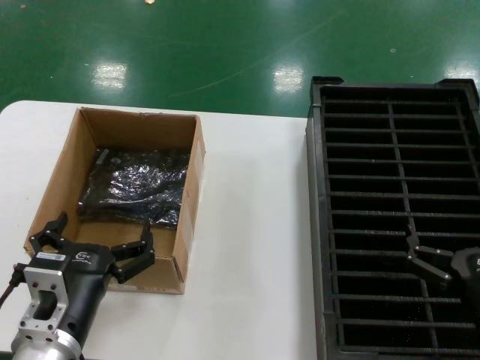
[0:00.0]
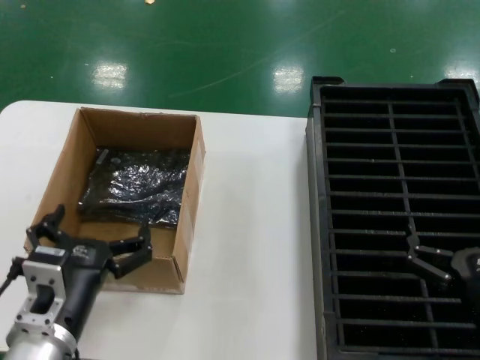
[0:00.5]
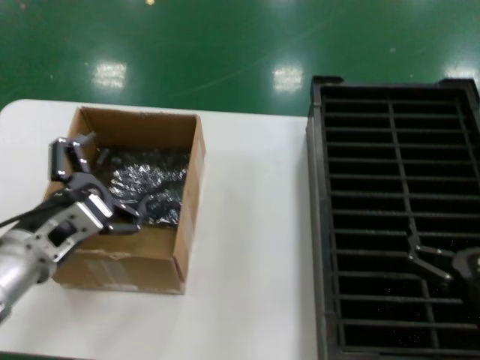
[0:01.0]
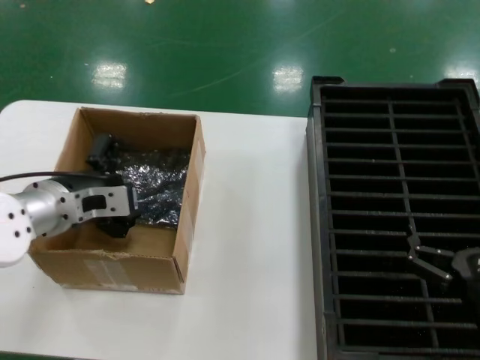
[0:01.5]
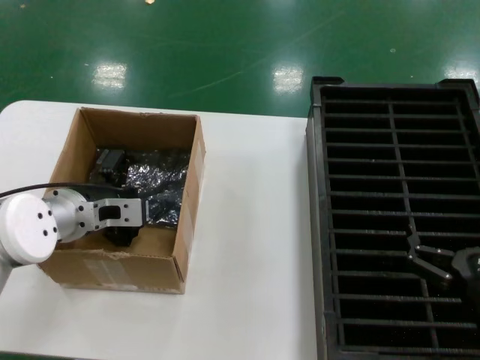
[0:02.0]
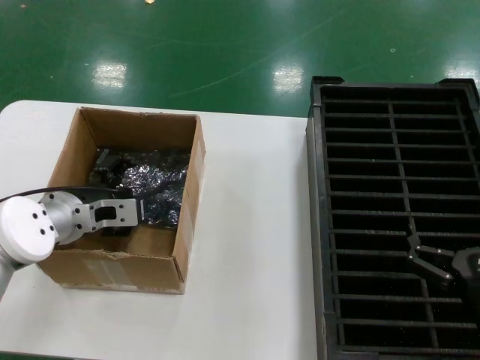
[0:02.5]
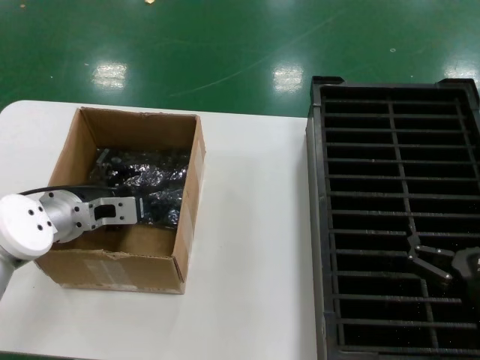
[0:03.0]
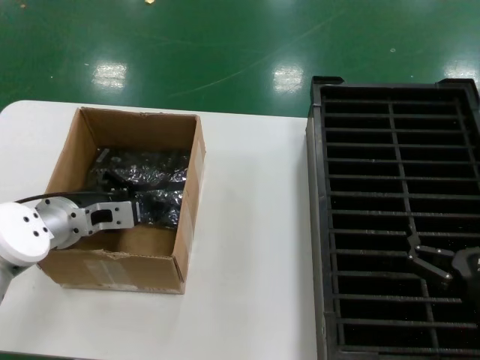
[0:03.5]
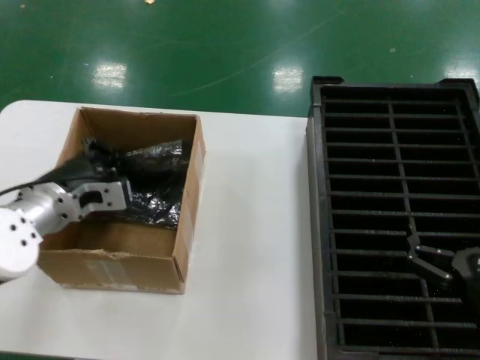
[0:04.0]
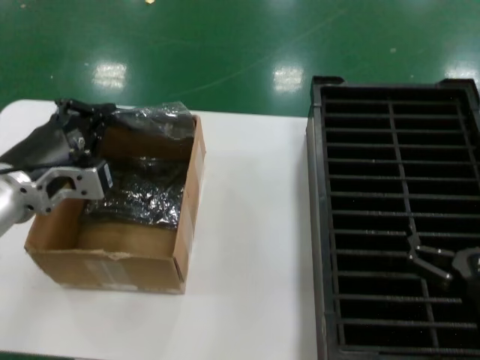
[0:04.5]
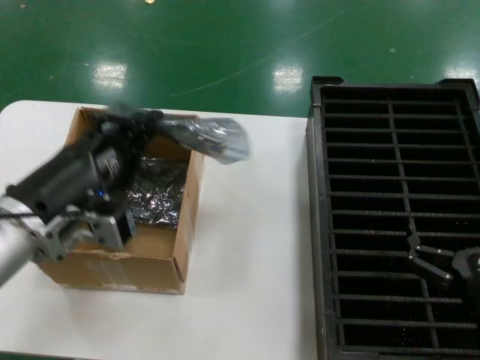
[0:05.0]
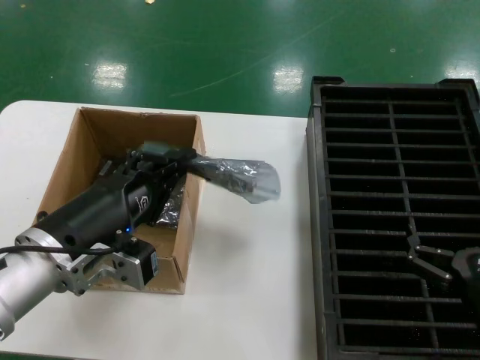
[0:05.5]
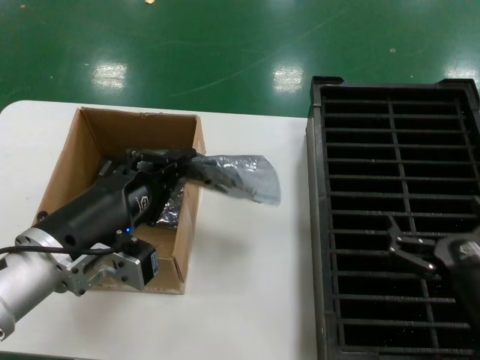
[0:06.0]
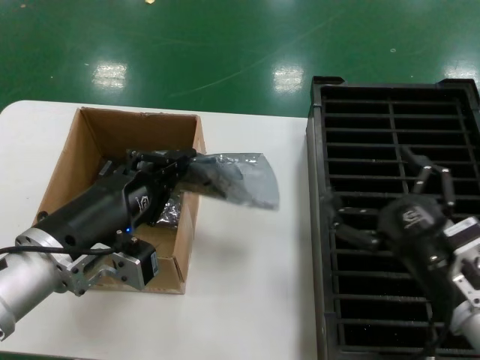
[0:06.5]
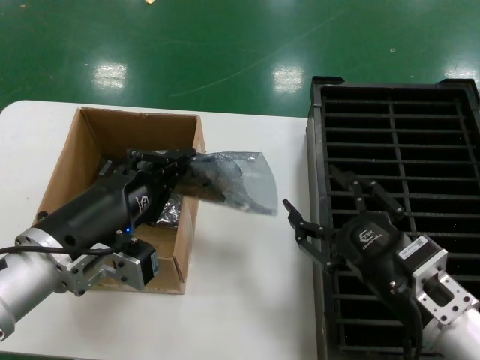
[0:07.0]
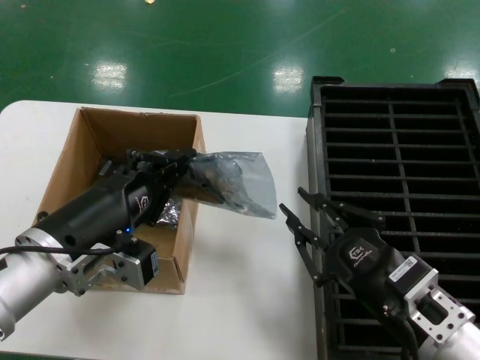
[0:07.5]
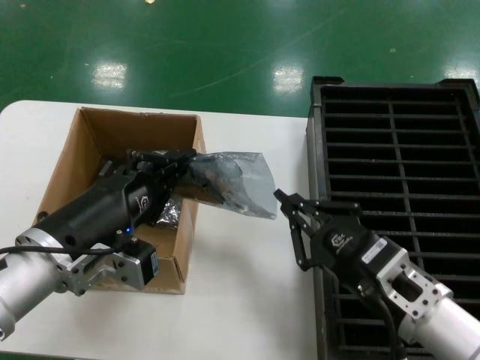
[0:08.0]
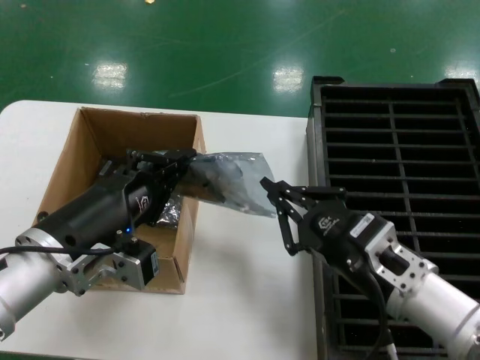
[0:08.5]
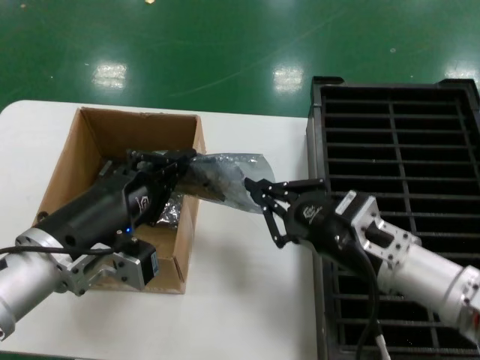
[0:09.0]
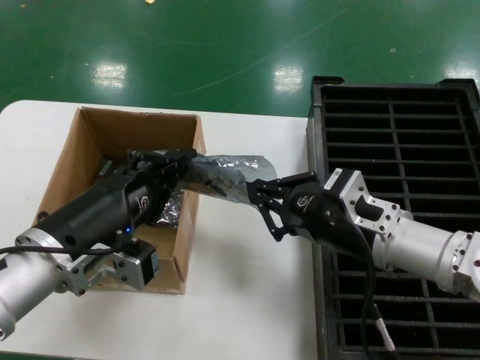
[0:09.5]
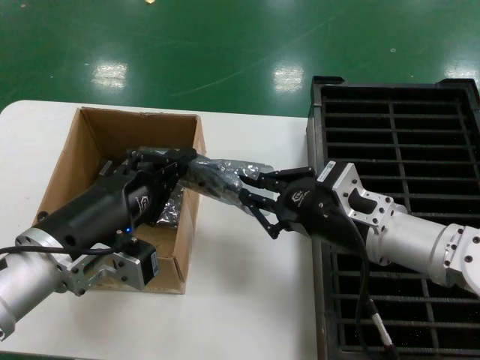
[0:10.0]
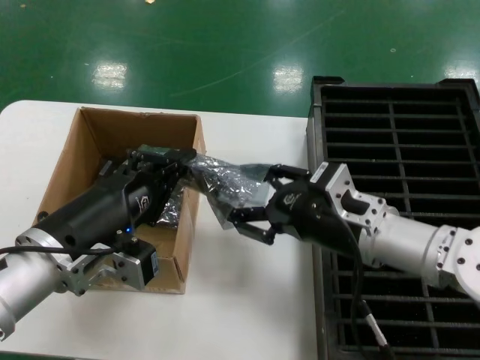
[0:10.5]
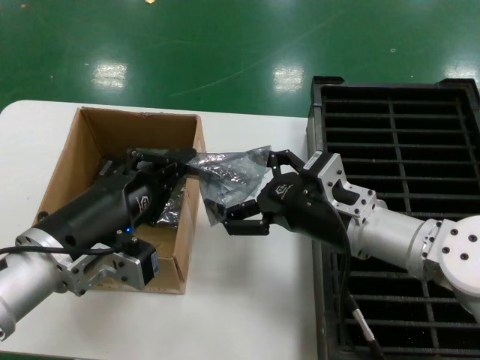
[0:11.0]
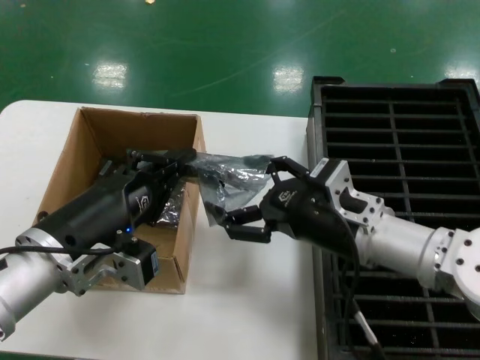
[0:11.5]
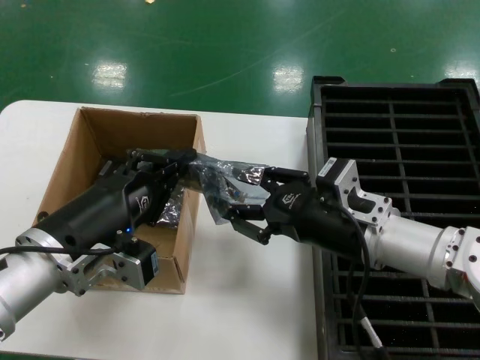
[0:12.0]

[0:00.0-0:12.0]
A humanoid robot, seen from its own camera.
Task of the whole recording: take out graphics card from box remove packaging put into black container.
Step, 0:00.0 to 0:03.5: Grasp the bag.
Step, 0:04.0 to 0:05.5: Lift the bag.
0:00.0 to 0:02.0: The left hand heads forward and upward, covering approximately 20 cm.
0:02.0 to 0:04.0: The hands stay close to where they were, moving slightly.
0:04.0 to 0:06.0: The left hand travels backward by about 15 cm.
0:06.0 to 0:08.0: The right hand is displaced to the left by some 10 cm.
0:08.0 to 0:10.0: The right hand moves forward and upward, some 10 cm.
0:10.0 to 0:12.0: There are only small adjustments of the hands.

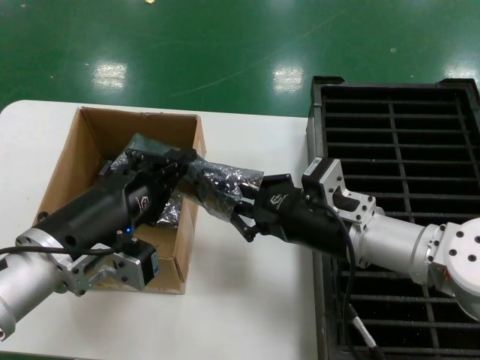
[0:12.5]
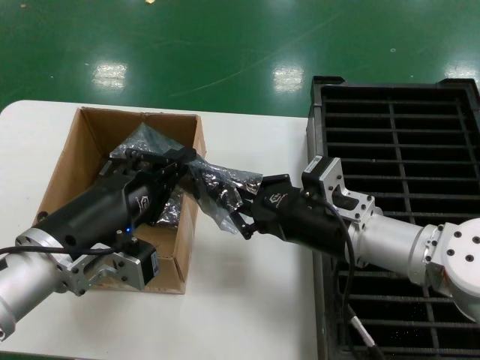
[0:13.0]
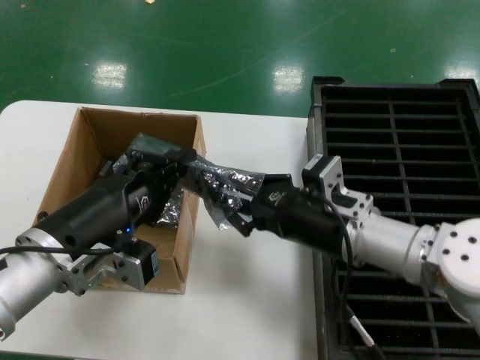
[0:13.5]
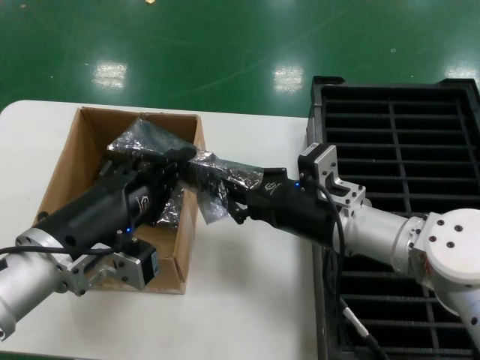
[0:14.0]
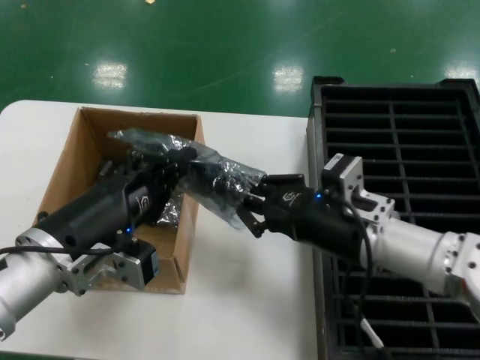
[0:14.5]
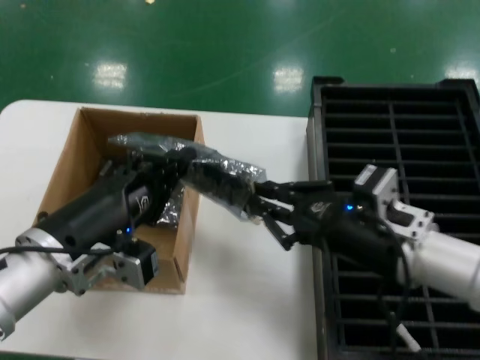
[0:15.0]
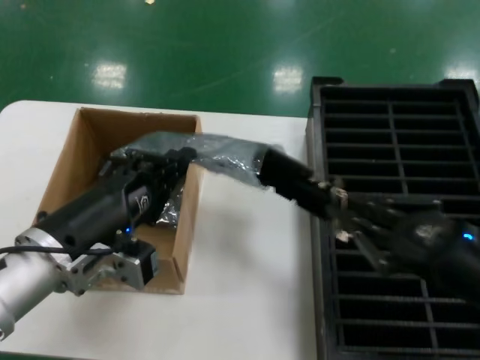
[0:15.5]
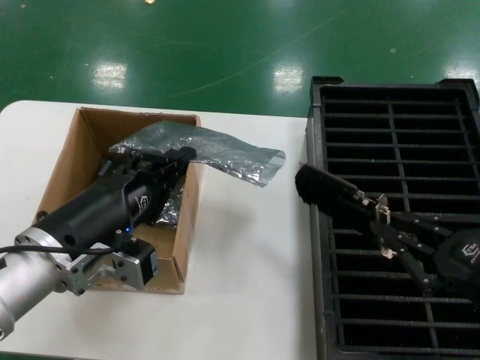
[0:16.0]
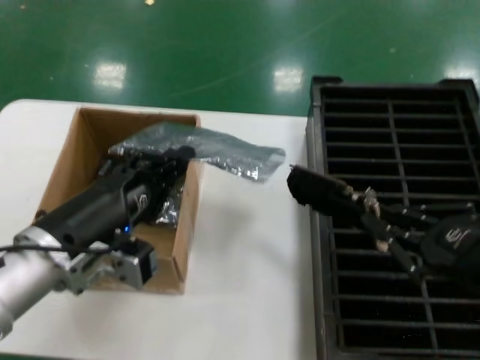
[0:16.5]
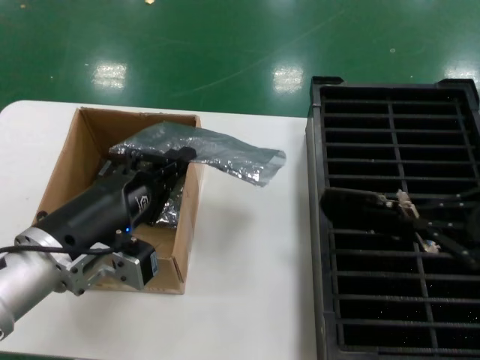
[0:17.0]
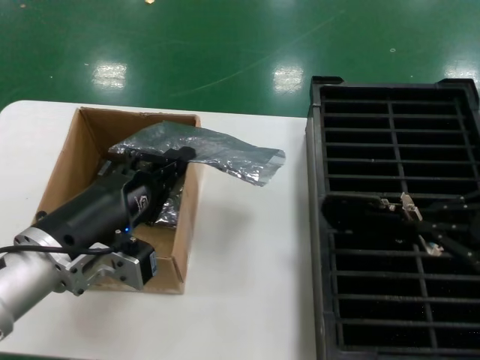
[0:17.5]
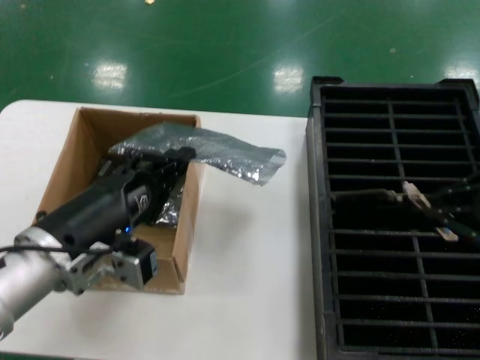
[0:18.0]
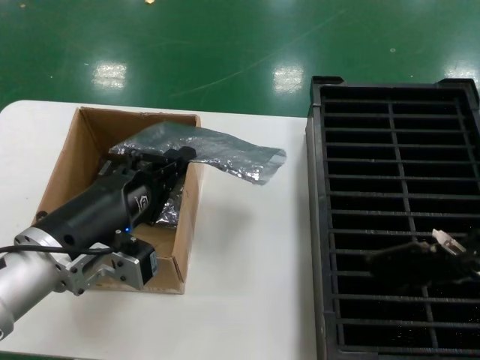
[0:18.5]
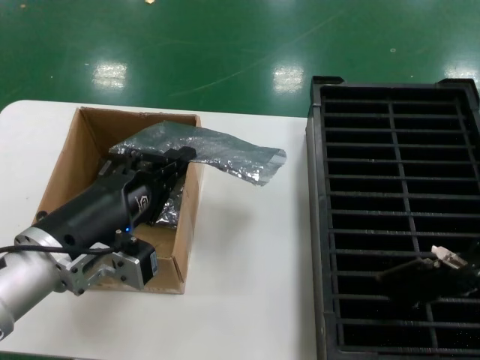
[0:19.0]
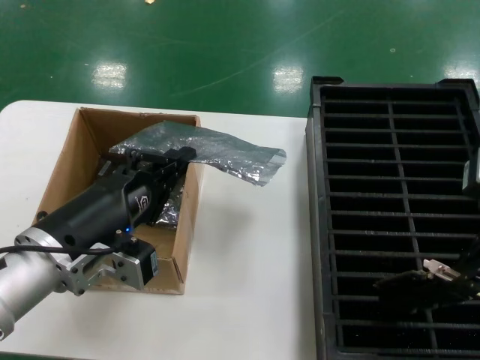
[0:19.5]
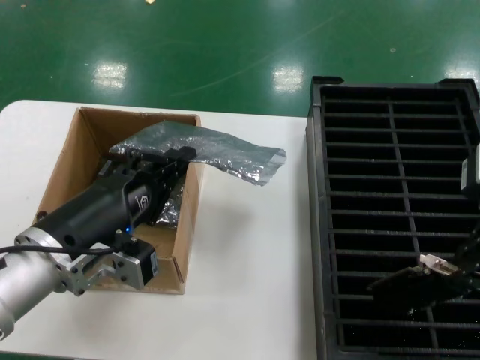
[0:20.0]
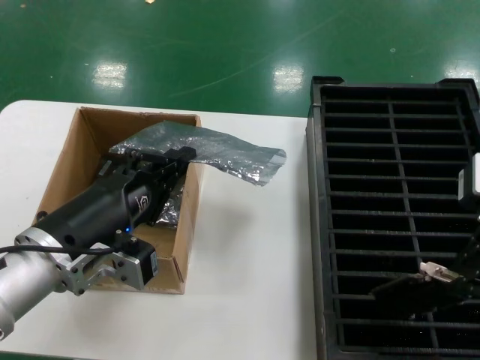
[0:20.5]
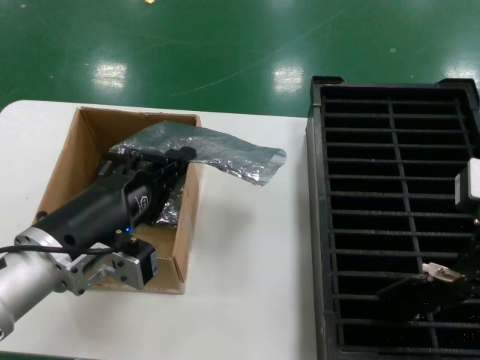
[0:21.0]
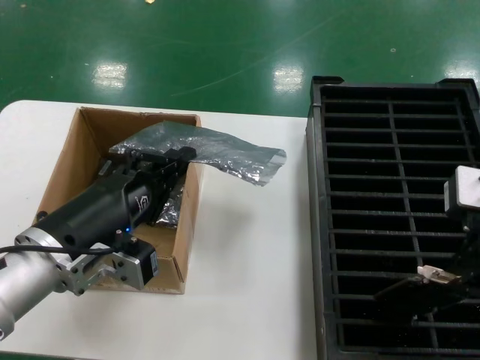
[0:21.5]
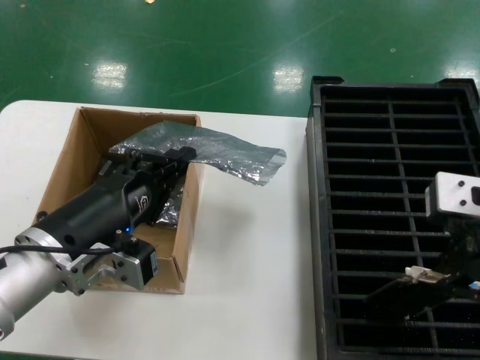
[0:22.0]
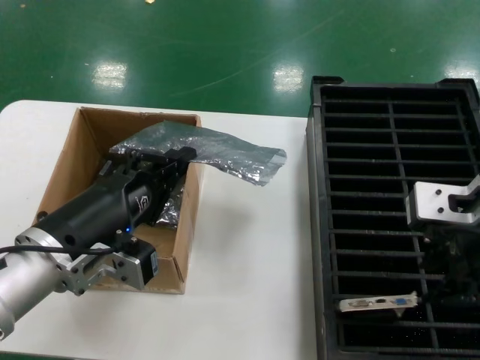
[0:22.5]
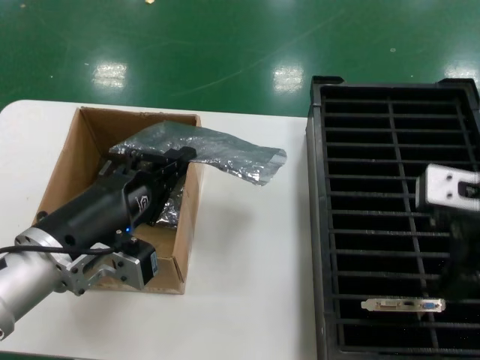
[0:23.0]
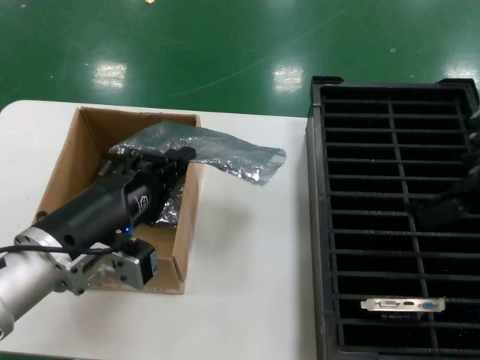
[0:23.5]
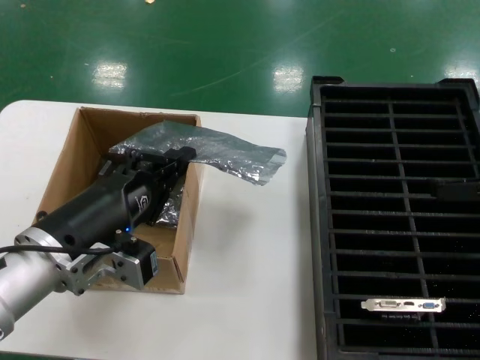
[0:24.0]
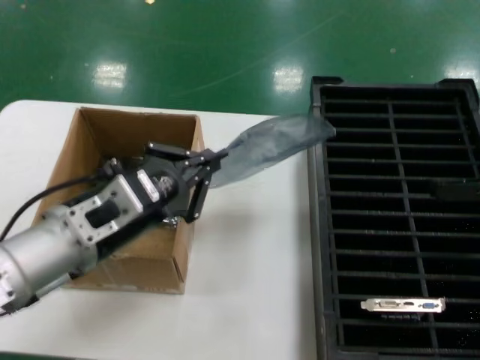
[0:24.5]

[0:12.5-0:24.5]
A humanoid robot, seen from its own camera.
Task of the whole recording: take out graphics card from box remove packaging put into black container.
Step, 0:12.5 to 0:15.5: Take out the hard disk of the bag.
Step, 0:16.0 to 0:22.5: Place the hard disk in the hard disk enclosure.
0:12.5 to 0:14.5: The hands make only small movements.
0:14.5 to 0:16.5: The right hand shifts about 20 cm to the right, backward and upward.
0:16.5 to 0:18.5: The right hand is displaced upward by some 15 cm.
0:18.5 to 0:20.5: The right hand moves to the left, some 5 cm.
0:20.5 to 0:22.5: The right hand shifts by some 5 cm.
0:22.5 to 0:24.5: The right hand is displaced to the right and downward by roughly 15 cm.

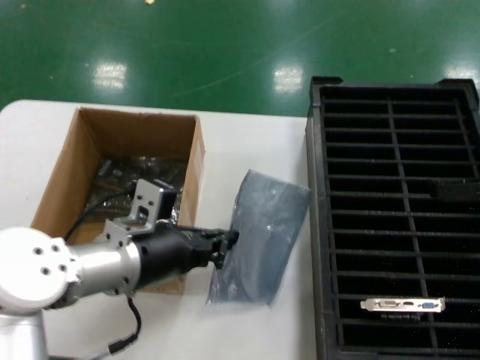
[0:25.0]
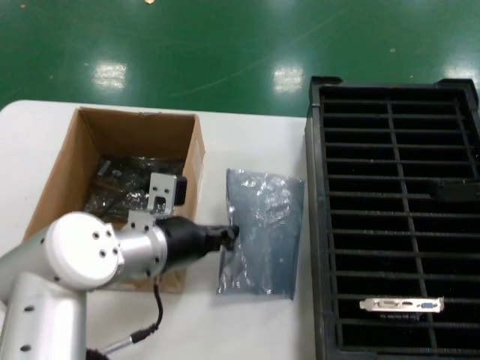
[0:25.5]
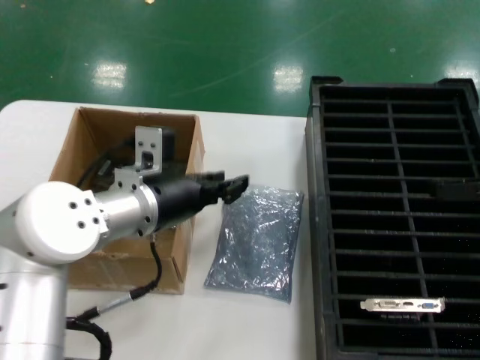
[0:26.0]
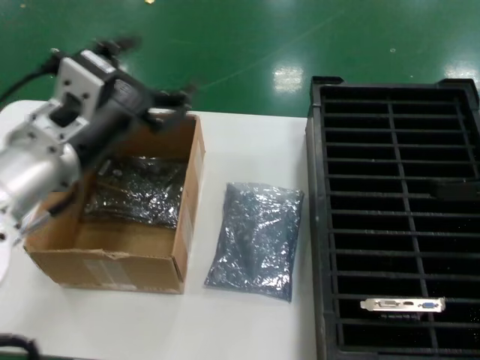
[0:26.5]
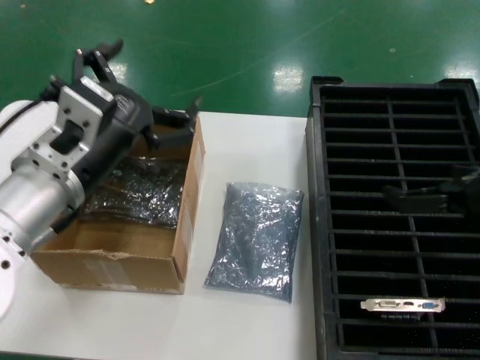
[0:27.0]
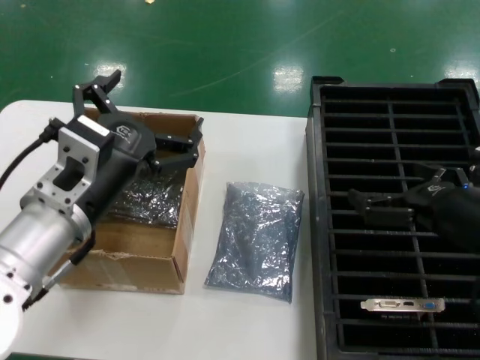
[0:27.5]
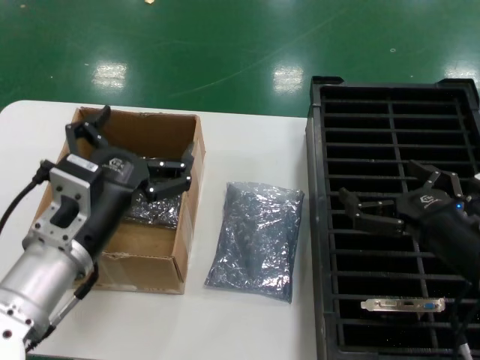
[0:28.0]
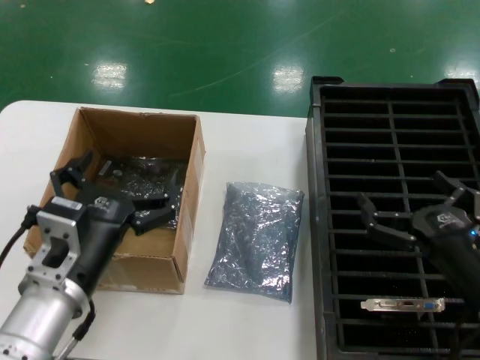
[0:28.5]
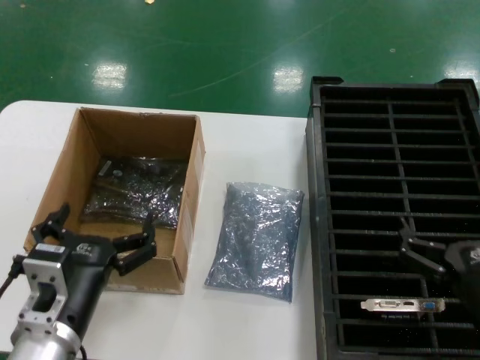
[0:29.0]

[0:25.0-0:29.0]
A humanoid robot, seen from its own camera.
Task of the whole recording: take out graphics card from box remove packaging put into black container.
0:25.0 to 0:27.0: The left hand moves upward, roughly 10 cm.
0:27.0 to 0:29.0: The left hand shifts some 15 cm downward. The right hand travels downward and backward by approximately 20 cm.
